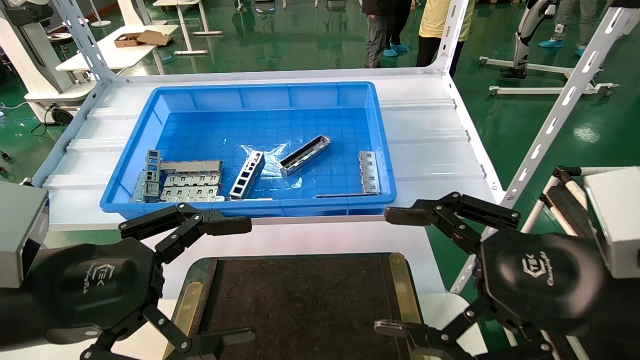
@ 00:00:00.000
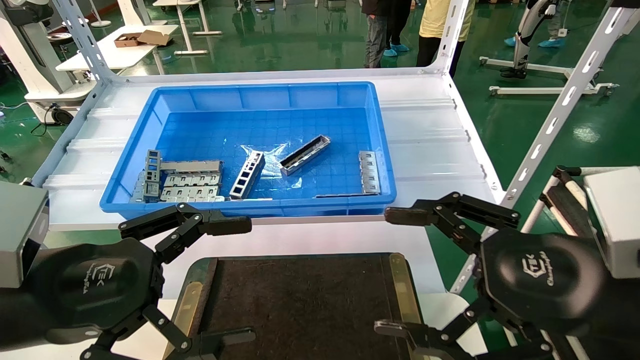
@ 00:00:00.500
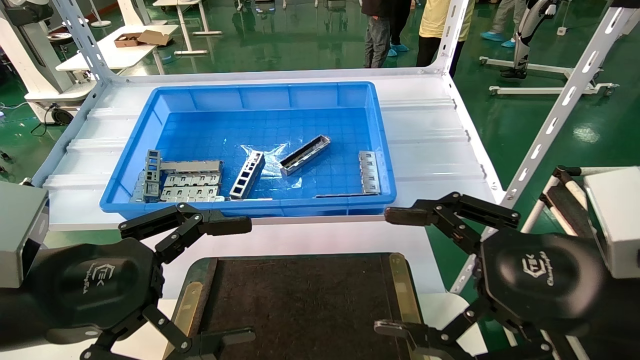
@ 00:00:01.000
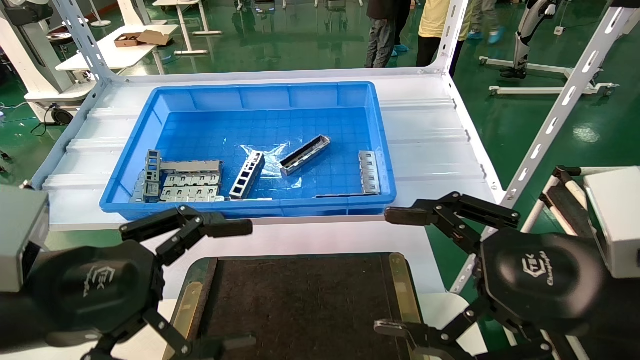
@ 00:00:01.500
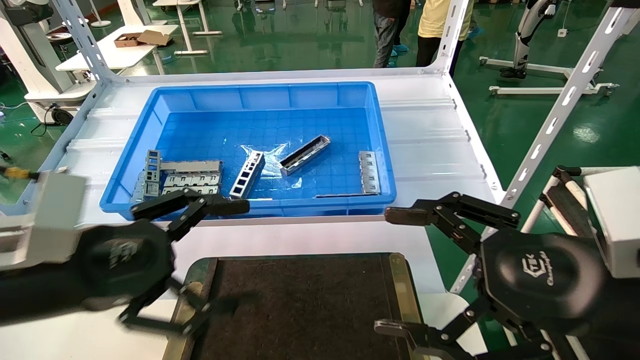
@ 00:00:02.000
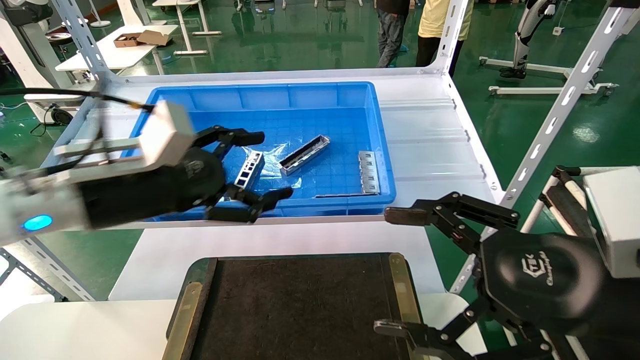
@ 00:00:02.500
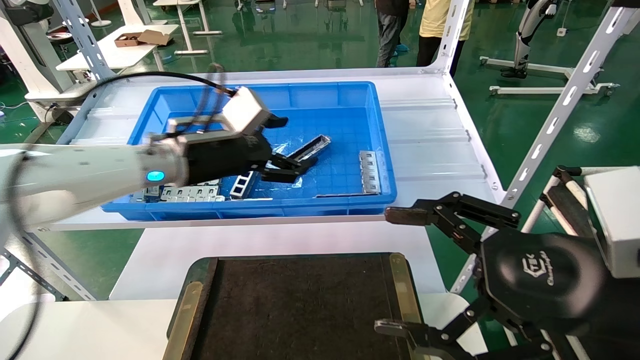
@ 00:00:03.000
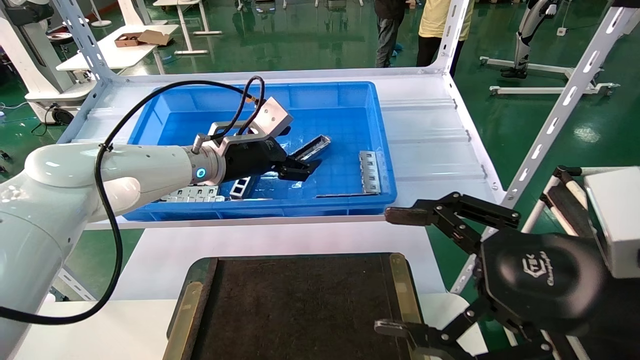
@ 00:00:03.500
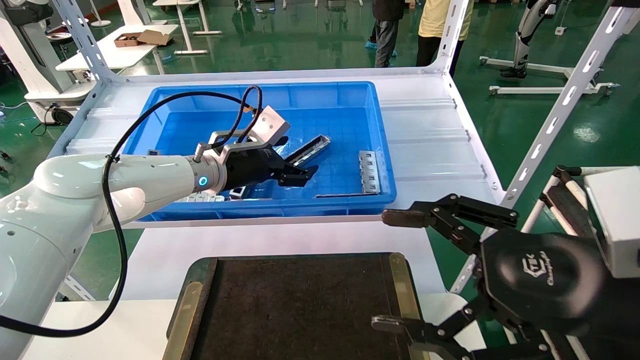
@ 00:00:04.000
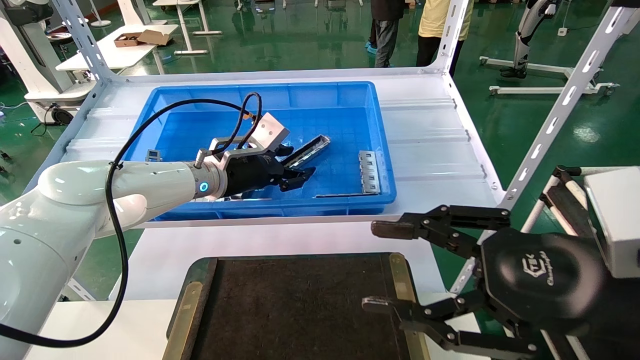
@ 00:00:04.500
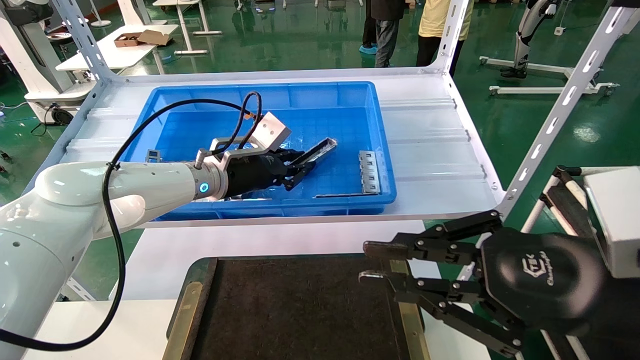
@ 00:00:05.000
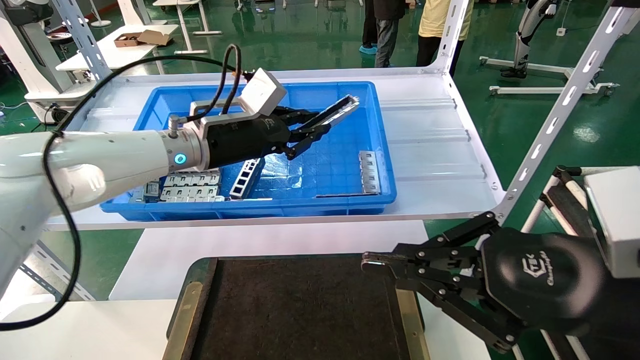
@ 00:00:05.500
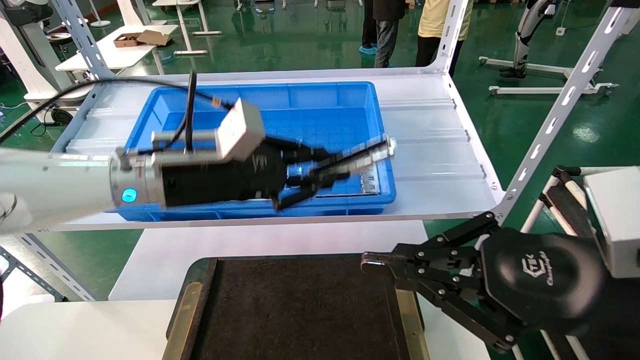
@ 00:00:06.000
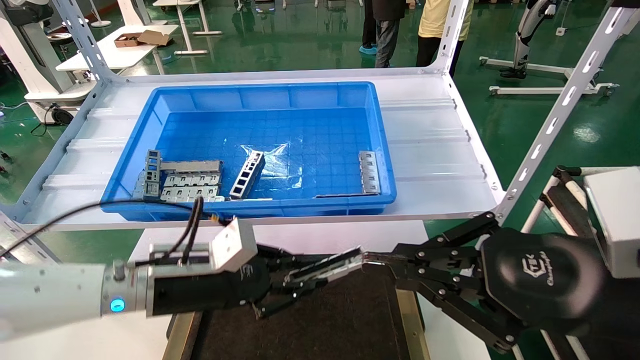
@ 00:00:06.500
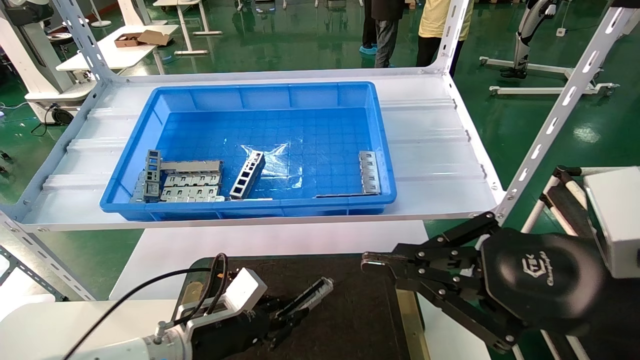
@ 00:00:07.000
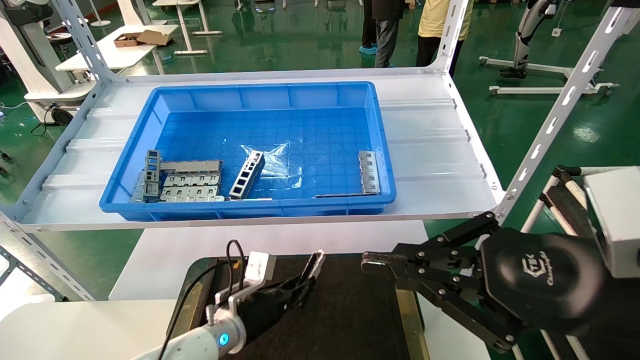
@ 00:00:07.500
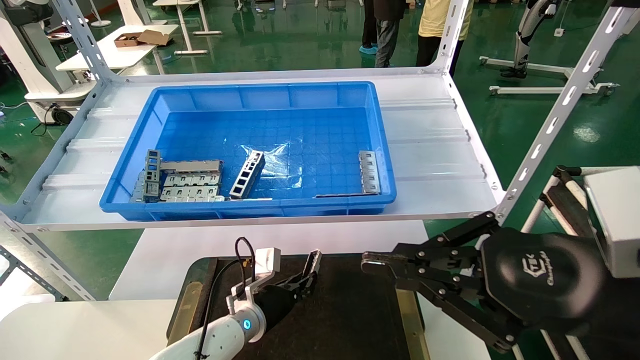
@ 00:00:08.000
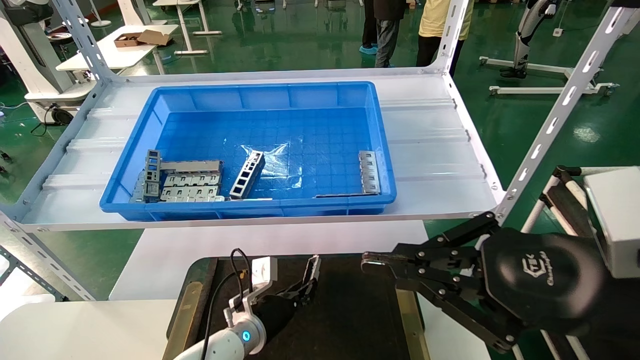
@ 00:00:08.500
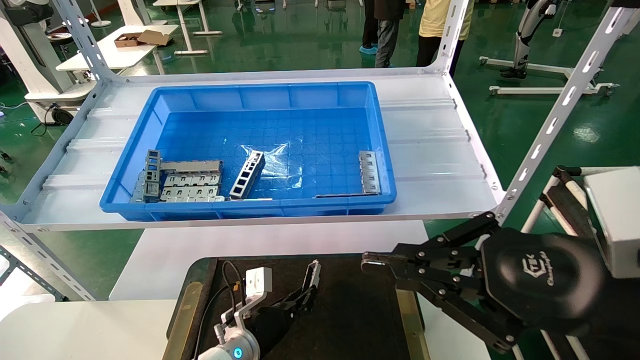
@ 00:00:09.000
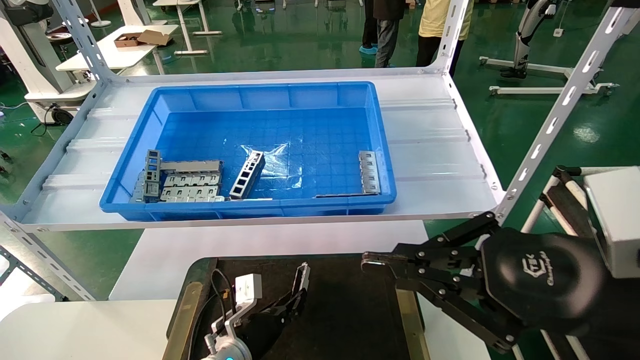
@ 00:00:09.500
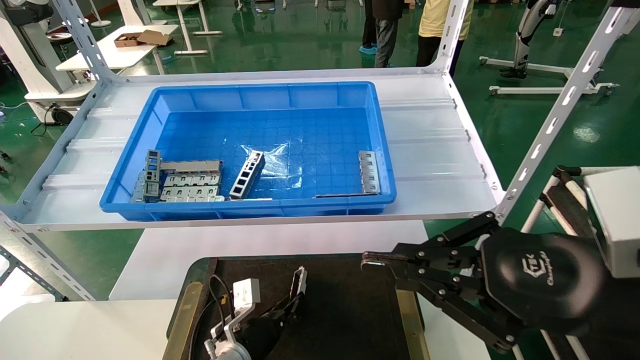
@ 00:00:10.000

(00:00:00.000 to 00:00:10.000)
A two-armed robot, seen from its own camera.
Task of the whole recording: Grasp the part with one hand and place it on the black container.
Step, 00:00:02.000 - 00:00:04.500: Pick up the front USB bracket from the feeding area.
00:00:00.000 - 00:00:02.000: The grippers make only small movements.
00:00:02.000 - 00:00:04.000: The left gripper moves forward, about 25 cm.
00:00:04.000 - 00:00:06.000: The right gripper closes, while the left gripper is displaced backward by roughly 10 cm, and closes.
00:00:06.000 - 00:00:08.000: The left gripper travels downward by approximately 30 cm.
00:00:08.000 - 00:00:10.000: The left gripper moves roughly 5 cm.

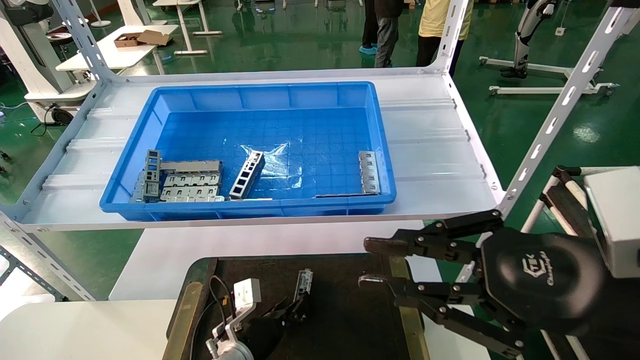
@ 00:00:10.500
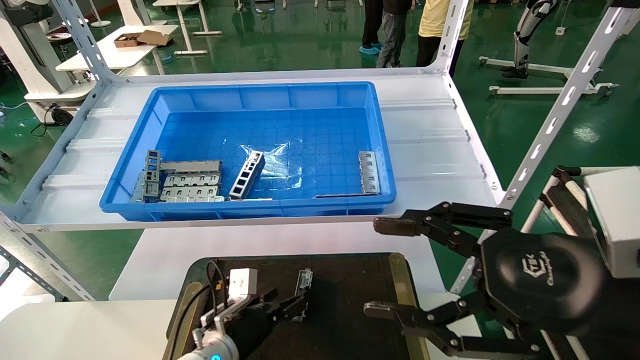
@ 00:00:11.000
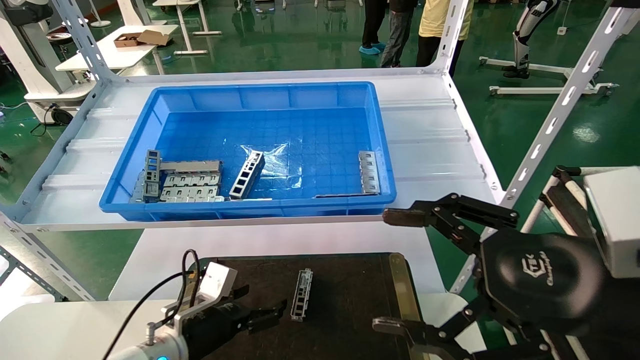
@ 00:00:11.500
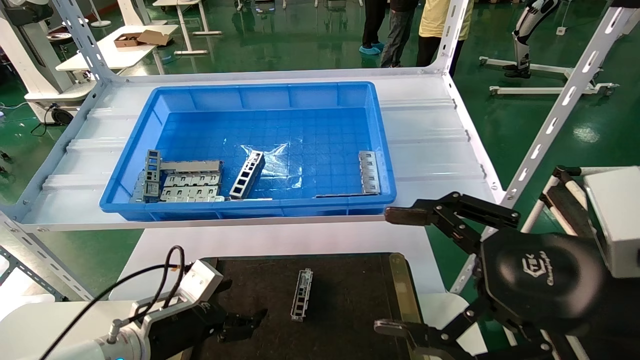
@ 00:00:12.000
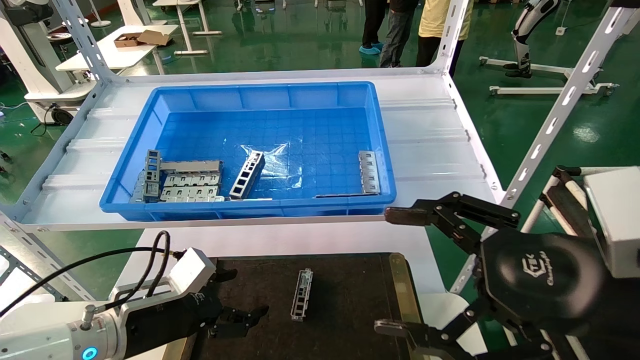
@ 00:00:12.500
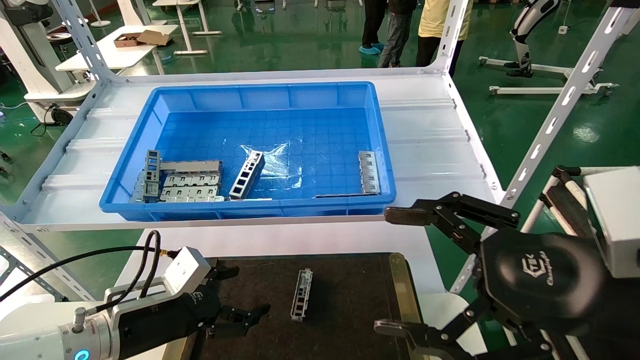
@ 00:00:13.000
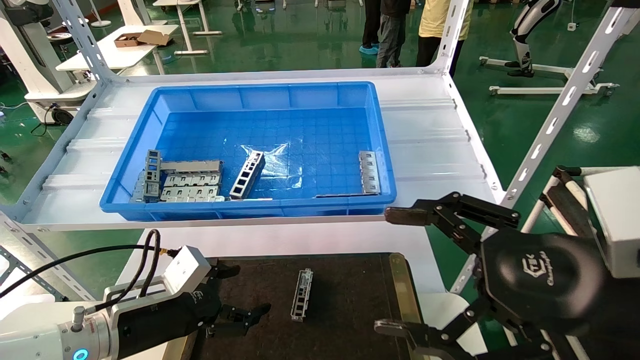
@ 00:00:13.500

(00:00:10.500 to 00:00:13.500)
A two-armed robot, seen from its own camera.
Task of the whole recording: Grasp the part with one hand and place it on the black container.
00:00:10.500 - 00:00:12.000: The left gripper shifts approximately 15 cm to the left, upward and backward, and opens up. Meanwhile the right gripper opens up.
00:00:12.000 - 00:00:13.500: The left gripper shifts by roughly 5 cm.
